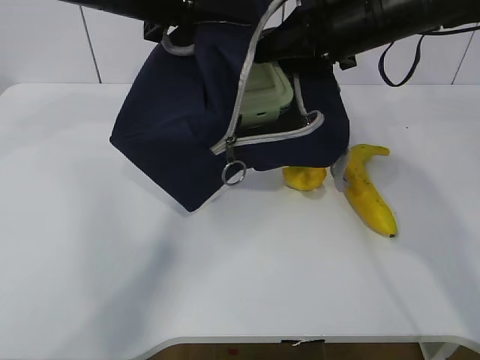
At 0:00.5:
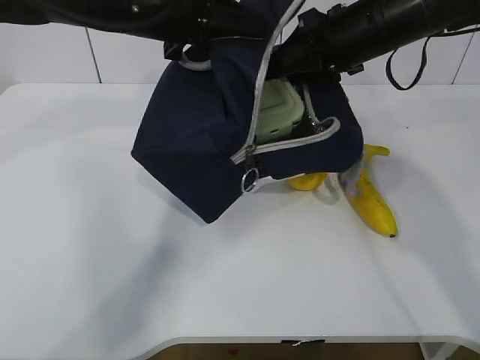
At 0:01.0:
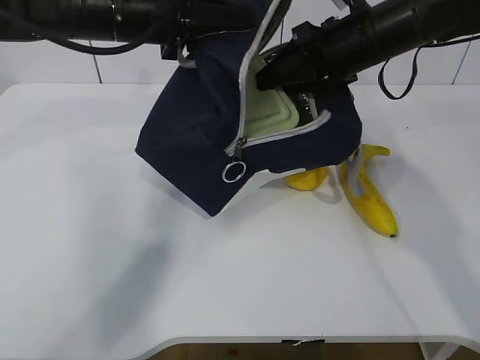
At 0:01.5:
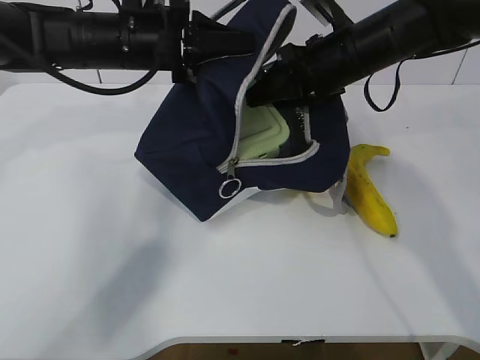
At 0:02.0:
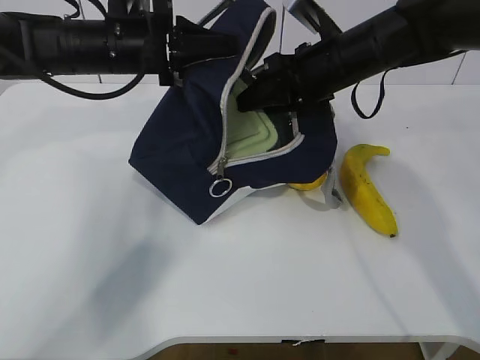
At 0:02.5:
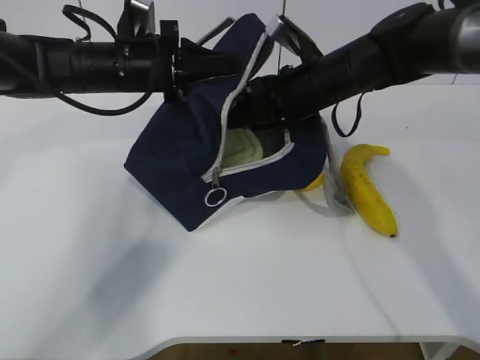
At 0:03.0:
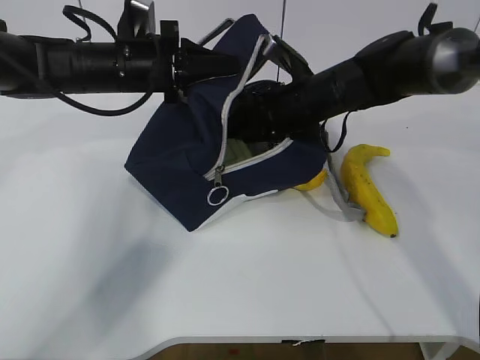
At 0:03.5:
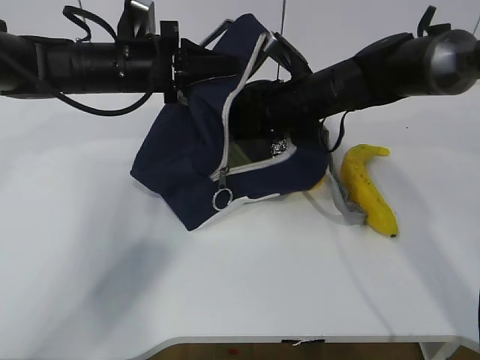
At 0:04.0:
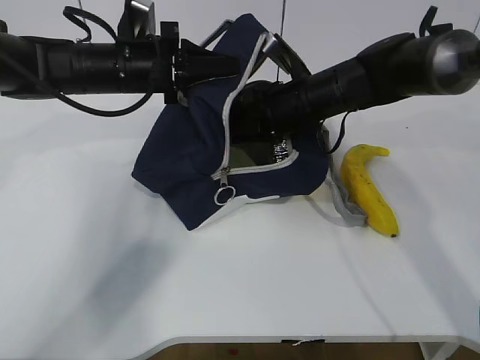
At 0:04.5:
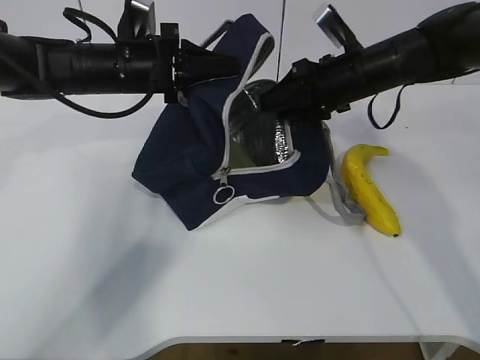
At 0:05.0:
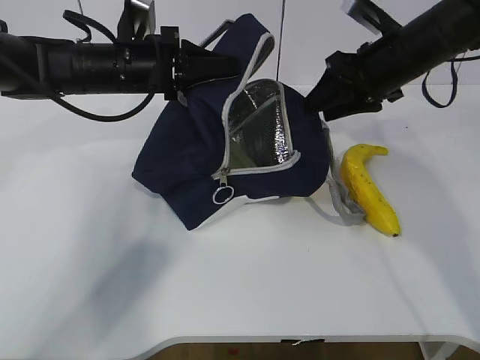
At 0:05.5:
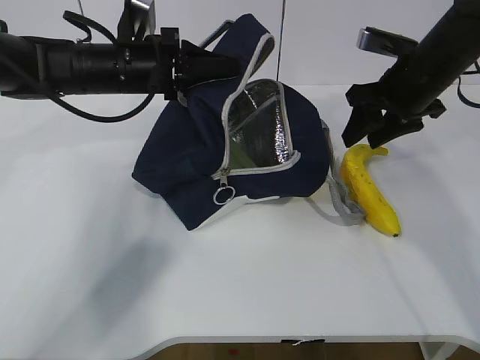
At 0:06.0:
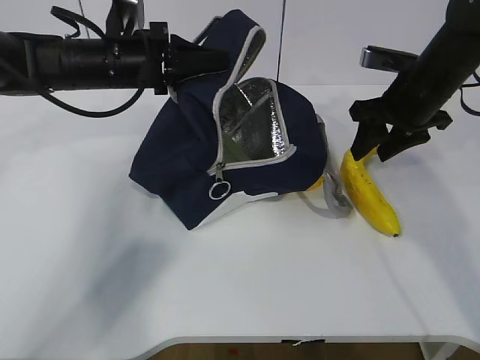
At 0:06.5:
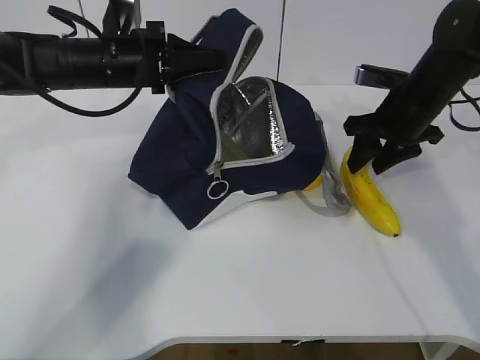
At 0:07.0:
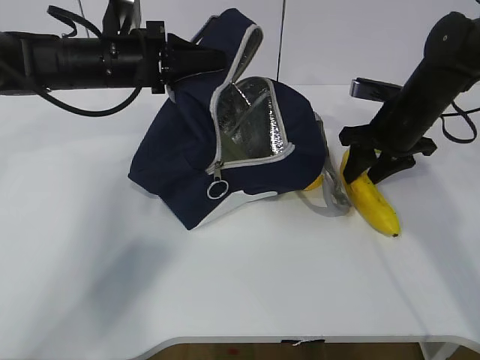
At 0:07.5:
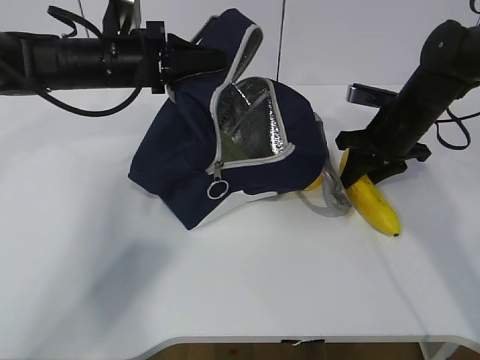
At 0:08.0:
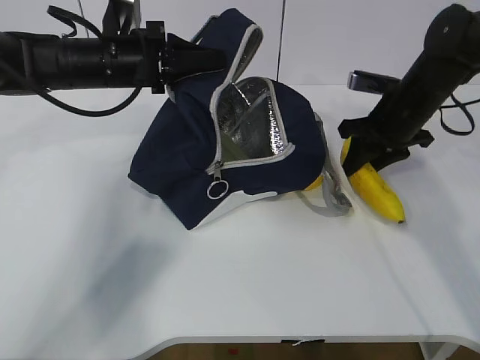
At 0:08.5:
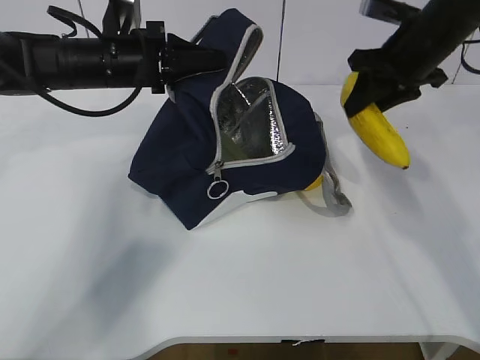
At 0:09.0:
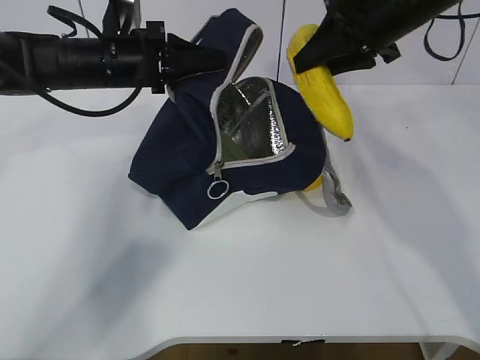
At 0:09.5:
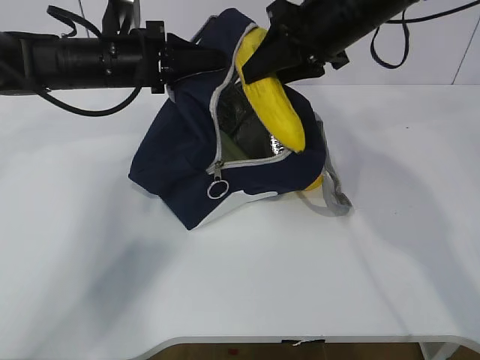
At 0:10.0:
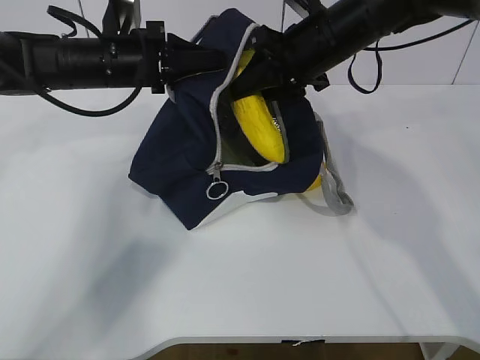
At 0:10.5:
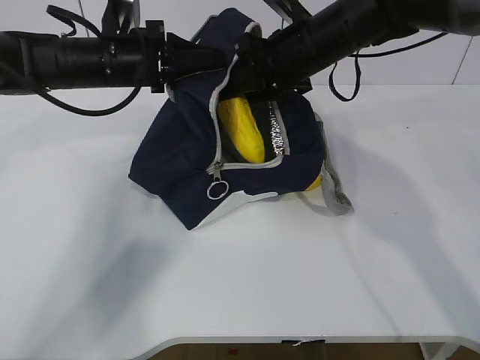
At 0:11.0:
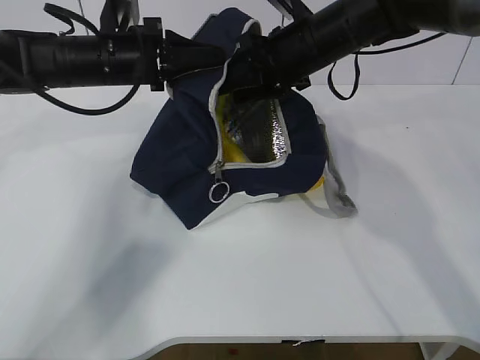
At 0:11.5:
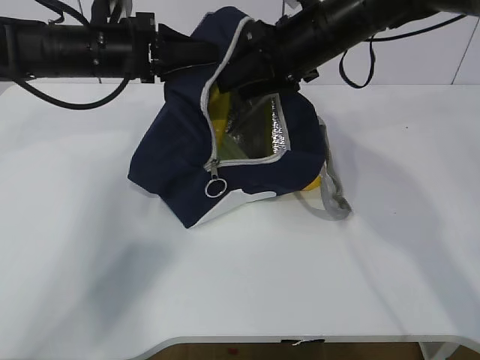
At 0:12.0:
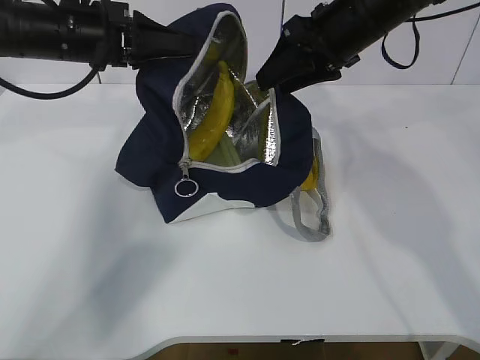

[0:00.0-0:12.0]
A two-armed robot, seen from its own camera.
Step, 0:02.0 to 0:04.0: Place it into the bag with your right hand.
Step, 0:04.5 to 0:11.0: Grab the pear with your right hand.
0:00.0 to 0:02.0: The right gripper travels downward by some 5 cm. Meanwhile the left gripper is displaced downward and forward by about 10 cm.
0:02.0 to 0:04.0: The right gripper goes about 5 cm downward.
0:04.0 to 0:06.0: The right gripper heads to the right, covering some 15 cm.
0:06.0 to 0:08.0: There are only small adjustments of the grippers.
0:08.0 to 0:10.0: The right gripper heads to the left and upward, covering roughly 15 cm.
0:10.0 to 0:12.0: The left gripper ends up approximately 5 cm from where it was.

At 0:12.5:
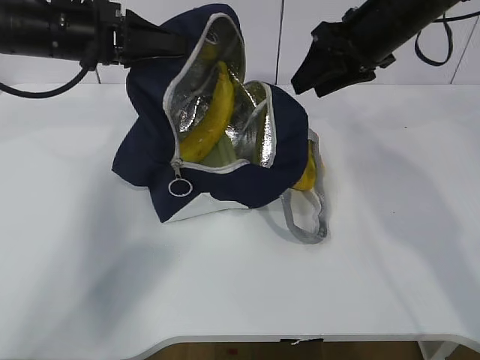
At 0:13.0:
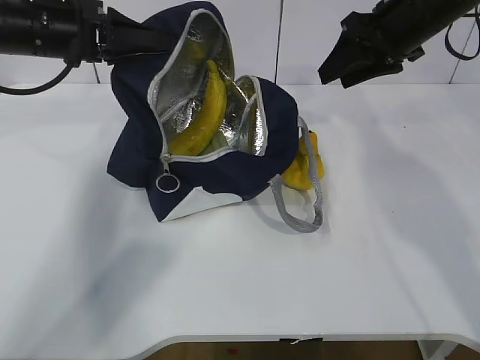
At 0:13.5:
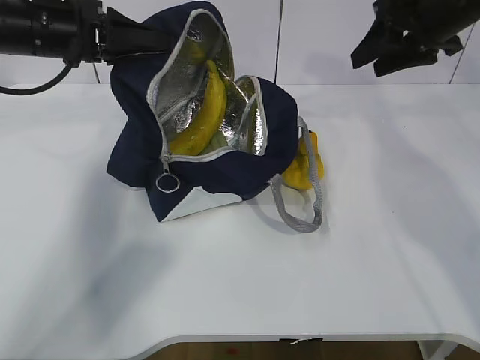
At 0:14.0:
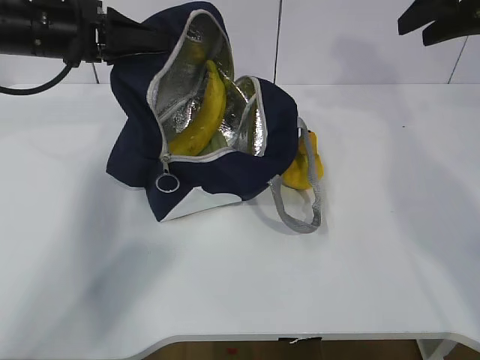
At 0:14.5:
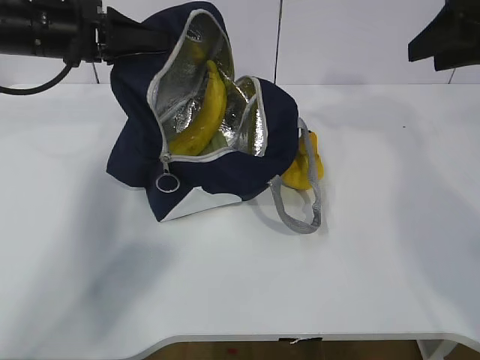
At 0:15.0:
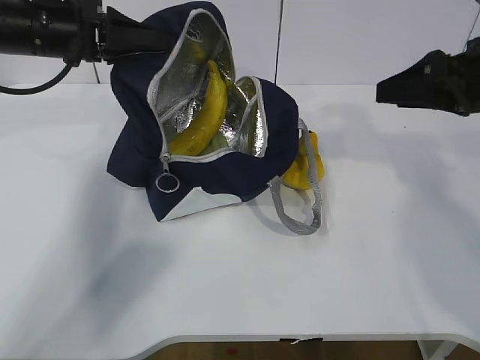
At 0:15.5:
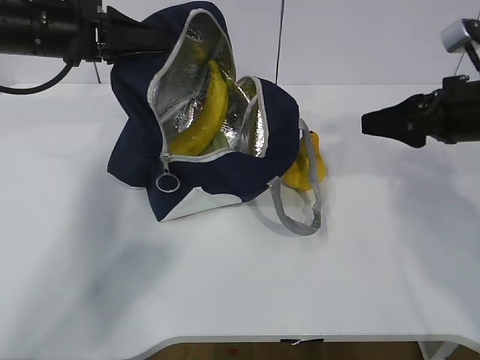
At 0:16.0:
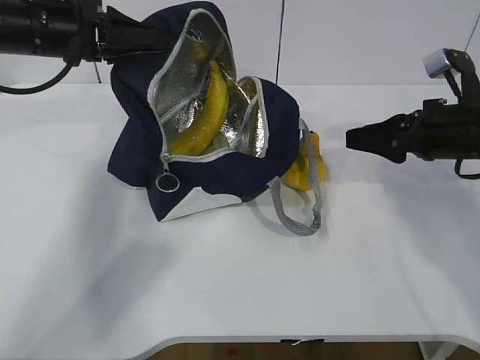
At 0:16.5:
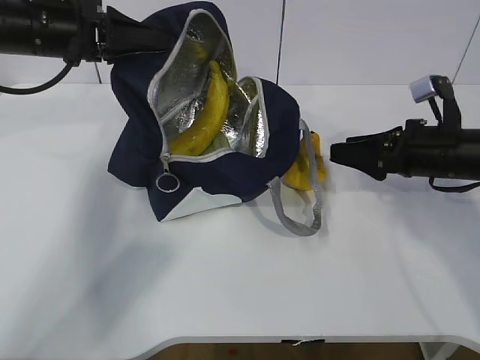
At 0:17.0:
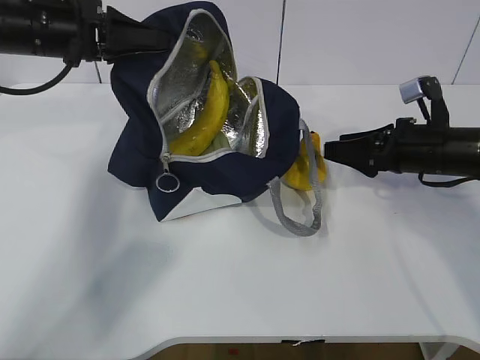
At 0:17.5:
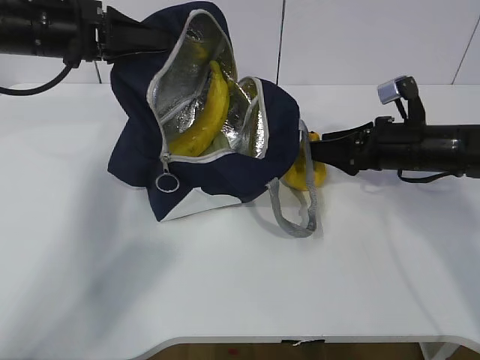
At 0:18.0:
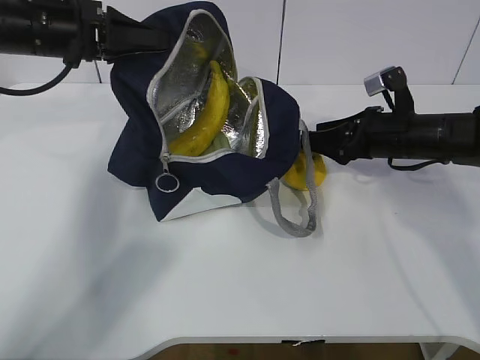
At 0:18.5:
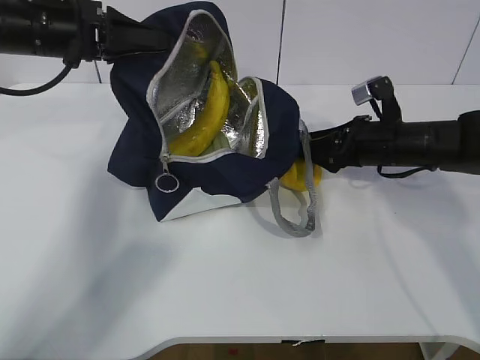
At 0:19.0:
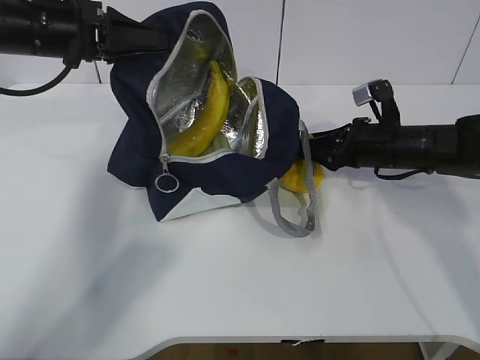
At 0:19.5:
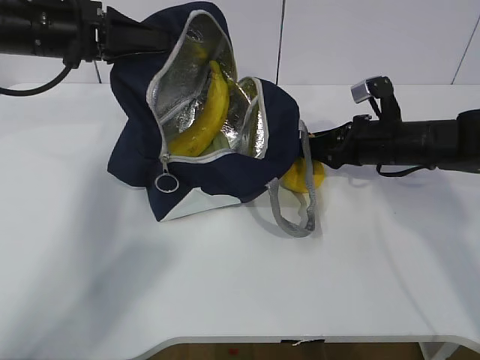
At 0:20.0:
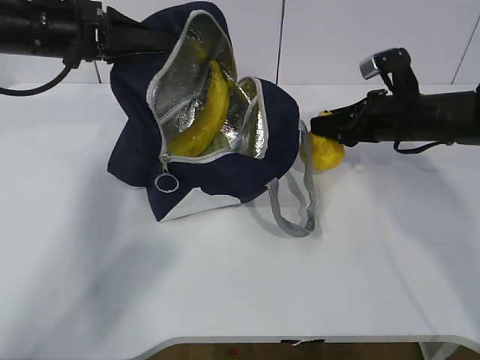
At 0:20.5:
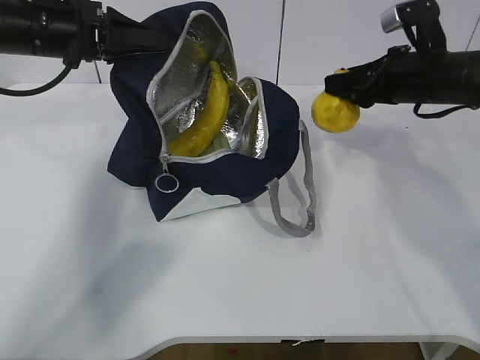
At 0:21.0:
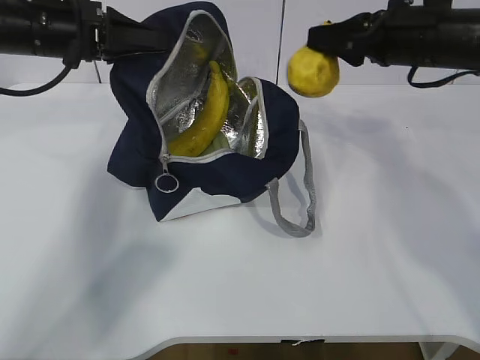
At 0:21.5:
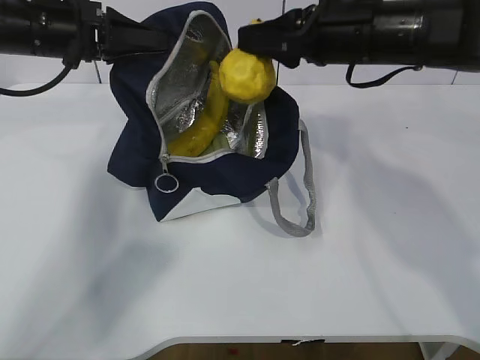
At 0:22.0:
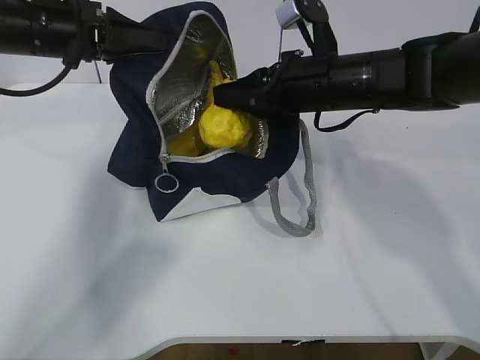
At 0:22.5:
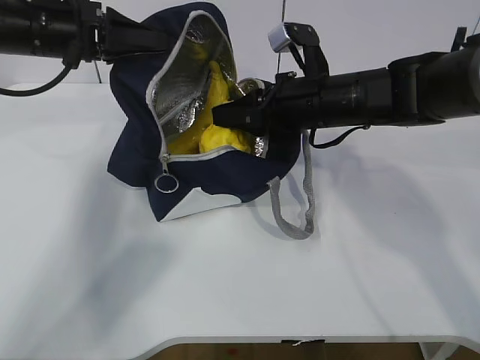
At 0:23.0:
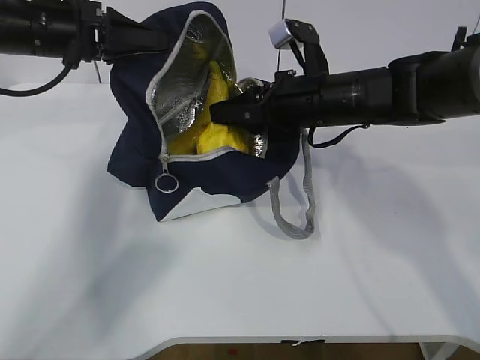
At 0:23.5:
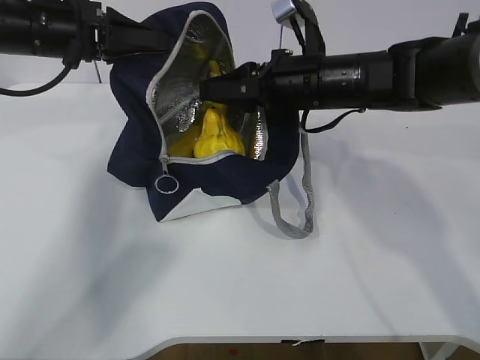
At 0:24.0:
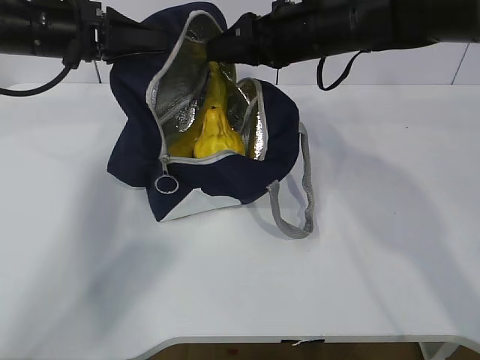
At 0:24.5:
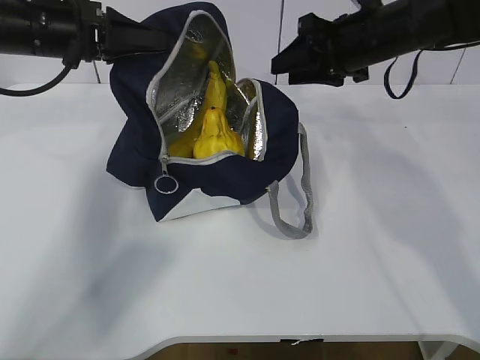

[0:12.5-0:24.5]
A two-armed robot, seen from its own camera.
Step, 0:15.0 to 0:17.5: Grab the lunch bag with your right hand.
Step, 0:18.0 to 0:21.5: Move the lunch bag to the right.
0:12.5 to 0:14.5: The right gripper heads to the right and backward, covering roughly 15 cm.
0:14.5 to 0:16.5: The right gripper moves downward, approximately 20 cm.
0:16.5 to 0:18.5: The right gripper is displaced forward by some 5 cm.
0:18.5 to 0:20.5: The right gripper is displaced upward by about 10 cm.
0:20.5 to 0:22.5: The right gripper shifts roughly 15 cm to the left.
0:22.5 to 0:24.5: The right gripper heads to the right and upward, covering about 10 cm.

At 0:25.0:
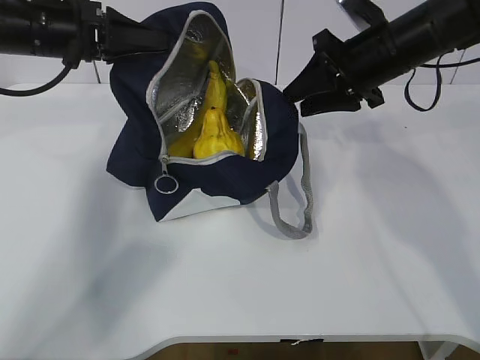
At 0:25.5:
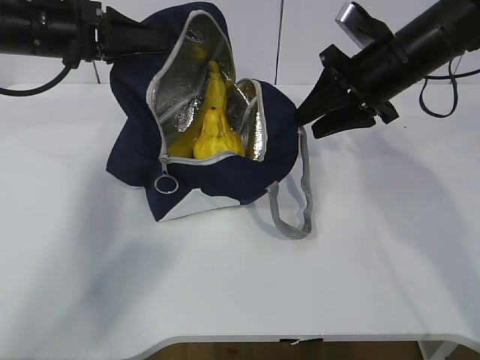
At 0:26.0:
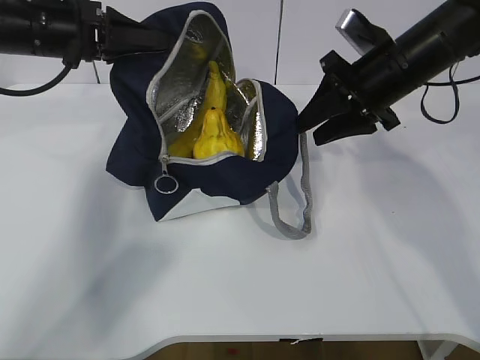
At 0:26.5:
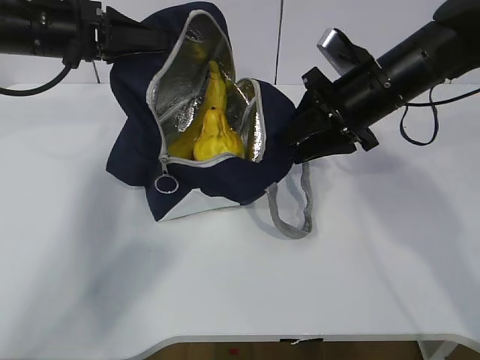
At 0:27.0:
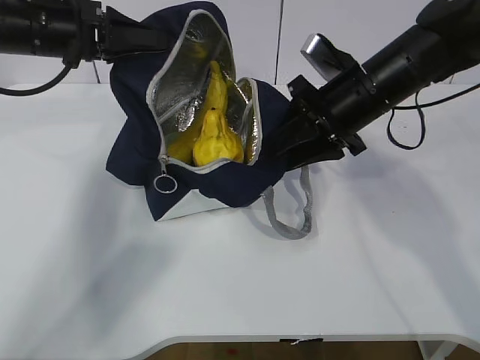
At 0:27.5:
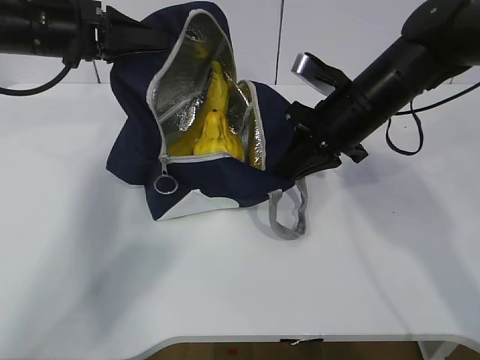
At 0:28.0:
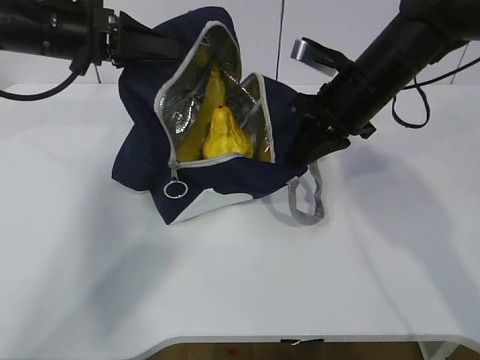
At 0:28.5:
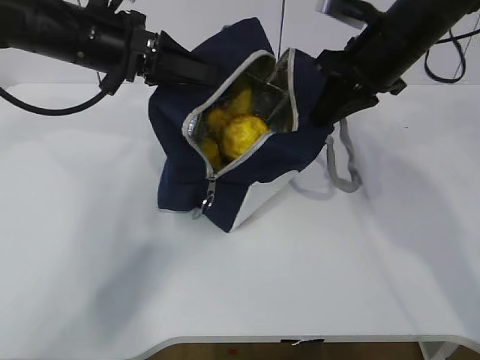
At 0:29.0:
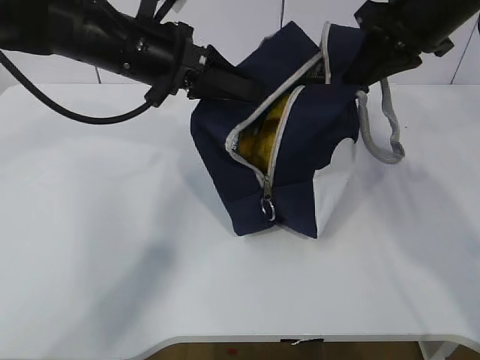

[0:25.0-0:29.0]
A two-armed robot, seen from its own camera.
0:25.0 to 0:27.0: The right gripper ends up some 5 cm from where it was.
0:27.0 to 0:29.0: The right gripper shifts approximately 10 cm upward and to the right, and closes up. Meanwhile the left gripper goes some 10 cm to the right.
